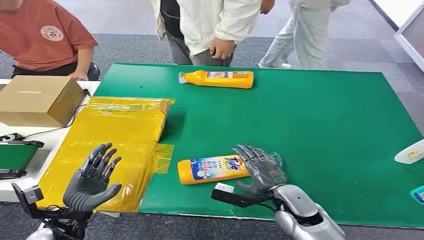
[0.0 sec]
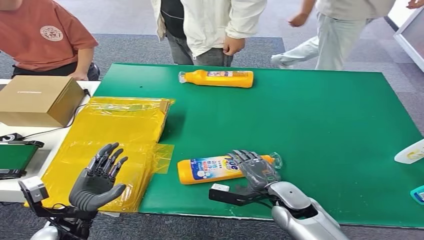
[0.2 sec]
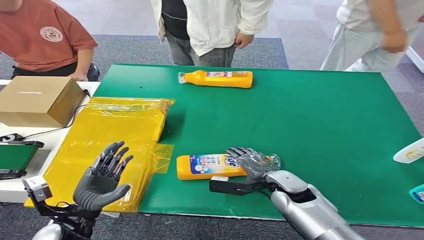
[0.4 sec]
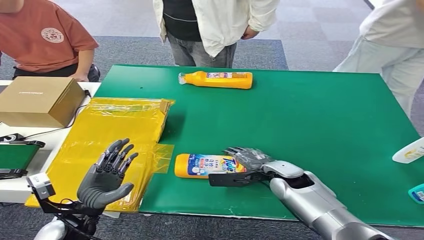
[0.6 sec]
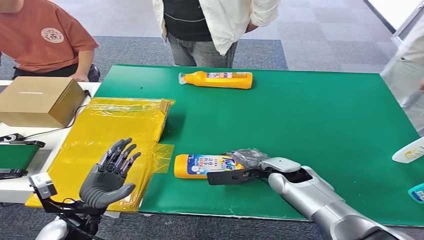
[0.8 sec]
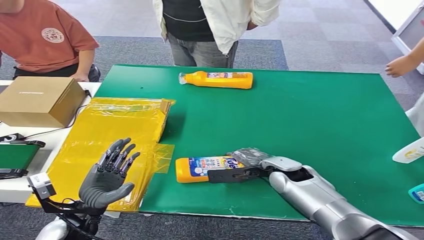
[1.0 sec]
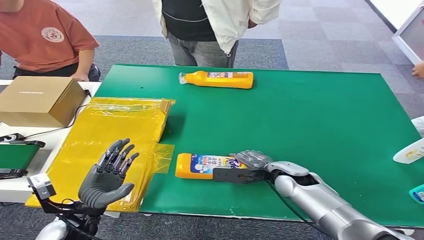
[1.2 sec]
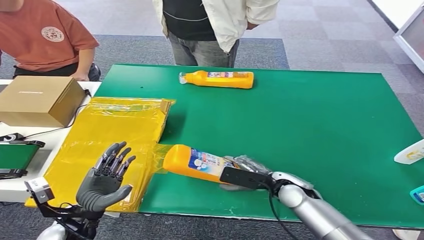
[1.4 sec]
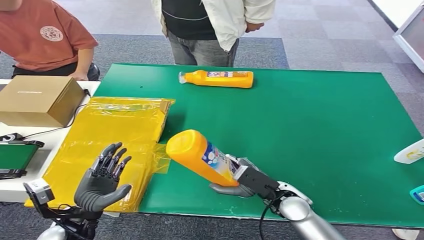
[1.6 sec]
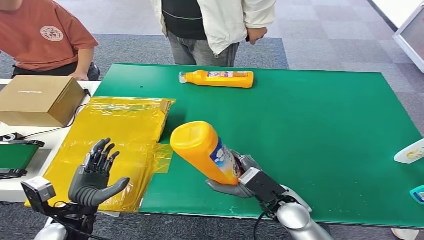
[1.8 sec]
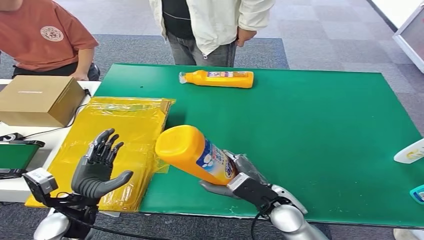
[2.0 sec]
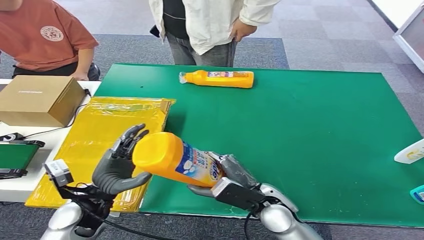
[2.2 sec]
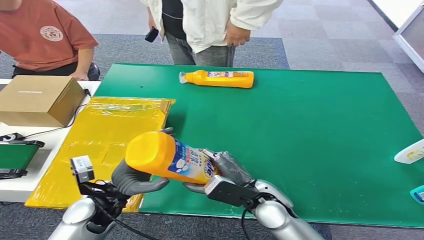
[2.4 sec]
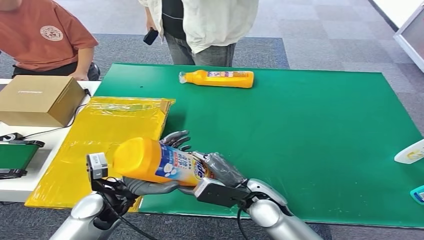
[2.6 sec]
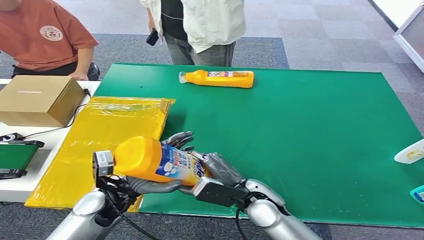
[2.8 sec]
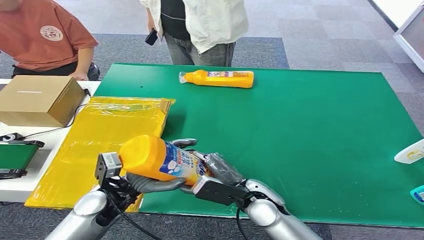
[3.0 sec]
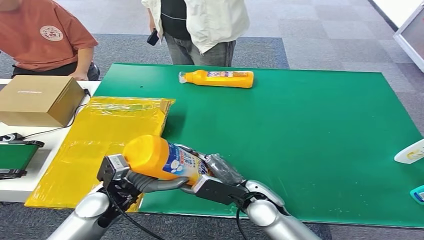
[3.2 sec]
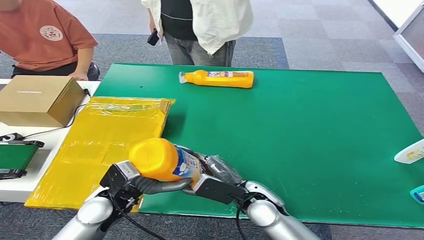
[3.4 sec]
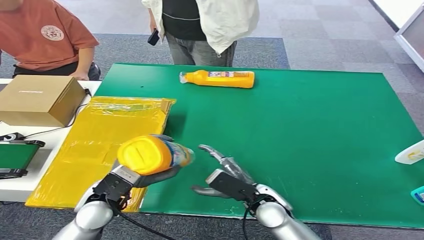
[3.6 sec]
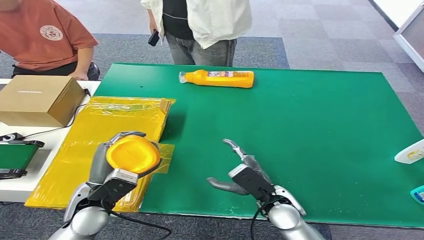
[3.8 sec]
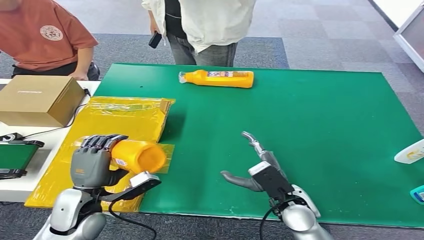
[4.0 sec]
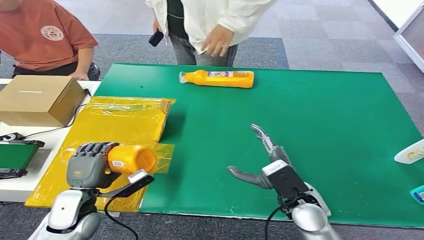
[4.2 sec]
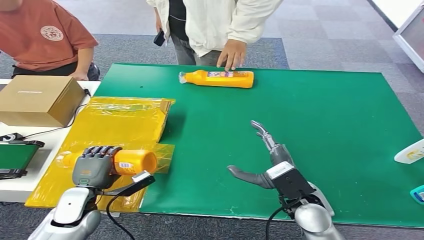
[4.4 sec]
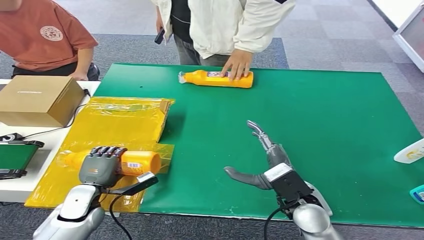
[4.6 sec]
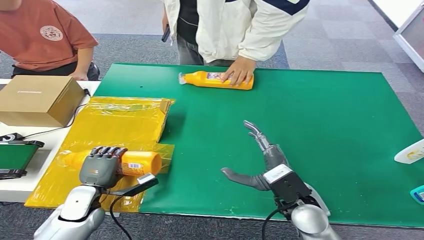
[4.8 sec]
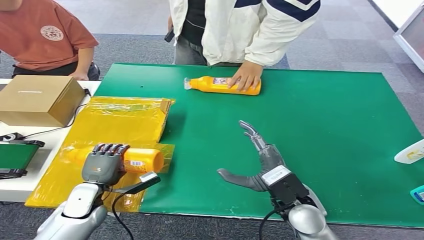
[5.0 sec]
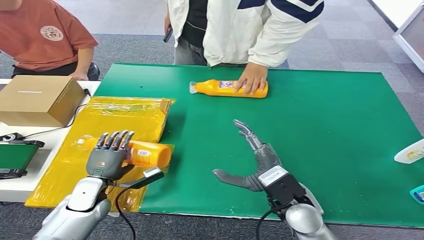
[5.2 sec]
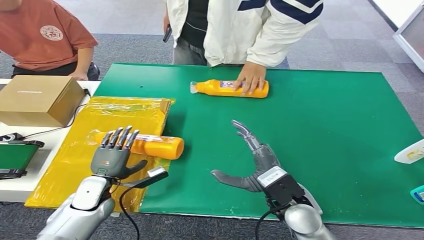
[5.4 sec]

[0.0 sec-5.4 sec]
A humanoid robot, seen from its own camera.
Step, 0.0 sec to 1.6 sec: Pick up the bottle from the table.
Step, 1.8 sec to 5.4 sec: Turn the bottle to the front side.
2.8 sec to 4.0 sec: The left hand moves to the left, about 5 cm; the right hand goes roughly 5 cm to the right.

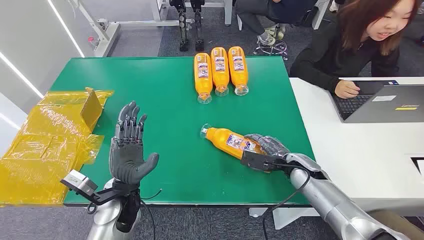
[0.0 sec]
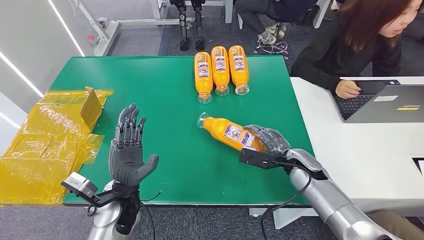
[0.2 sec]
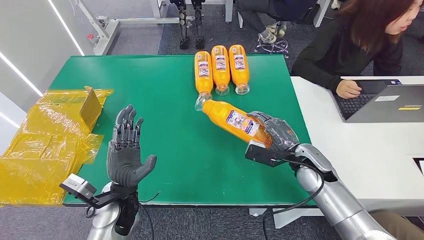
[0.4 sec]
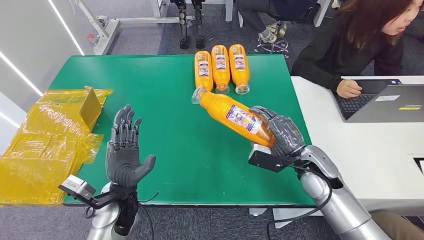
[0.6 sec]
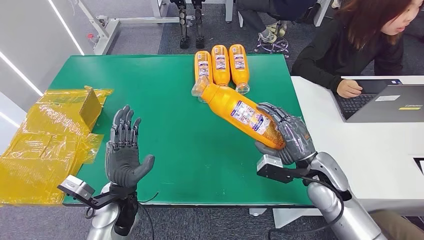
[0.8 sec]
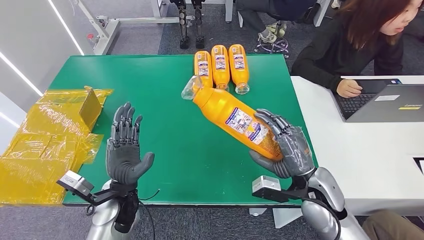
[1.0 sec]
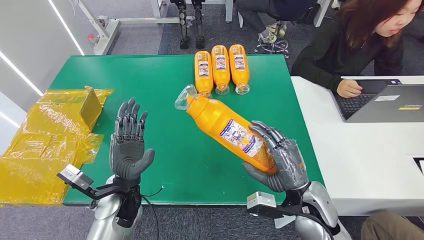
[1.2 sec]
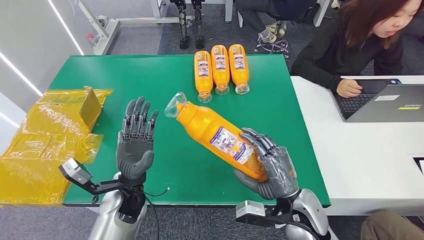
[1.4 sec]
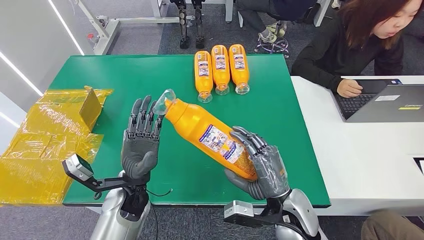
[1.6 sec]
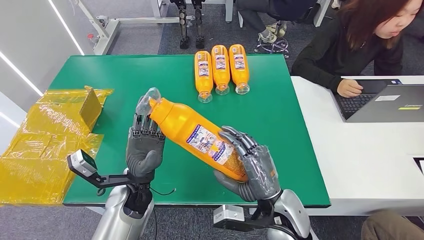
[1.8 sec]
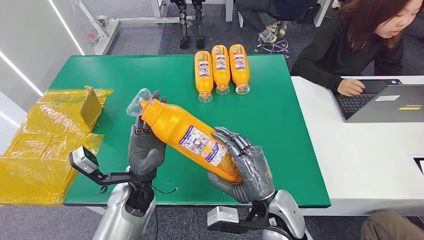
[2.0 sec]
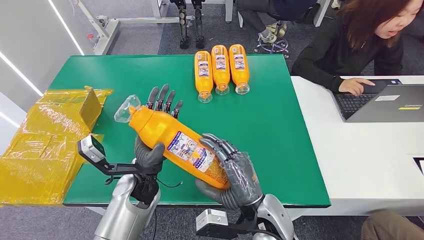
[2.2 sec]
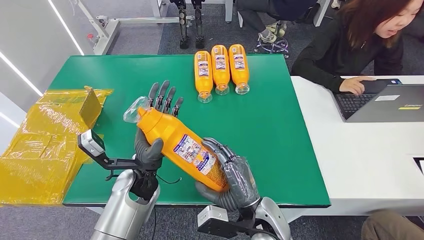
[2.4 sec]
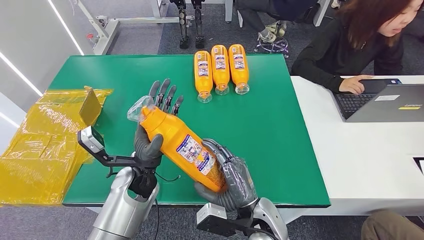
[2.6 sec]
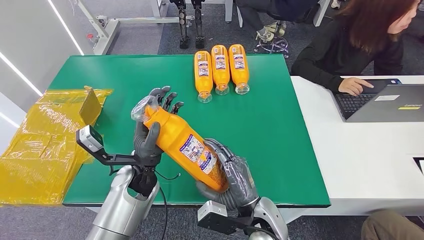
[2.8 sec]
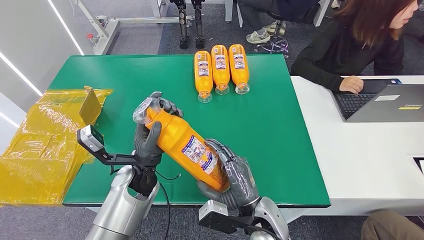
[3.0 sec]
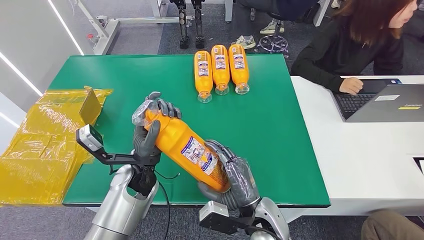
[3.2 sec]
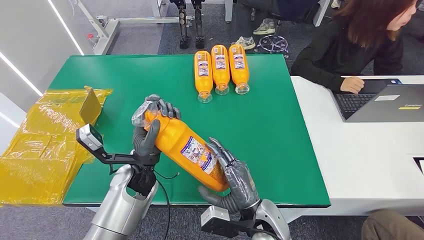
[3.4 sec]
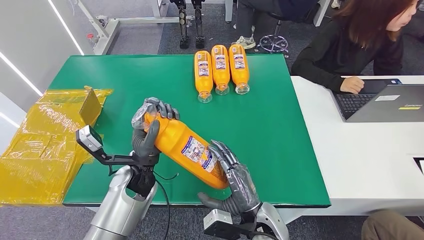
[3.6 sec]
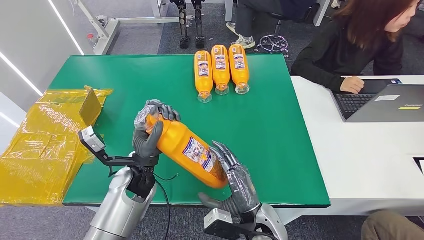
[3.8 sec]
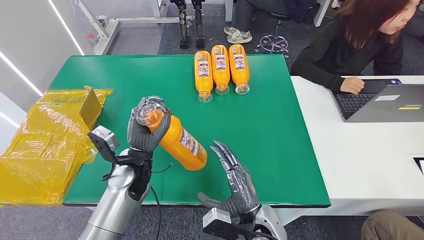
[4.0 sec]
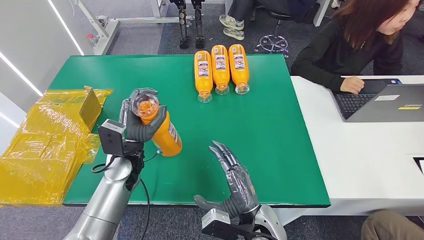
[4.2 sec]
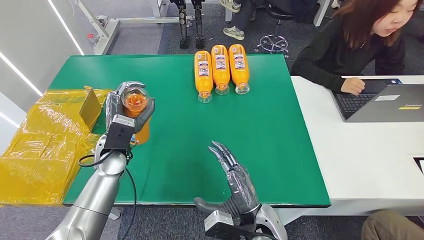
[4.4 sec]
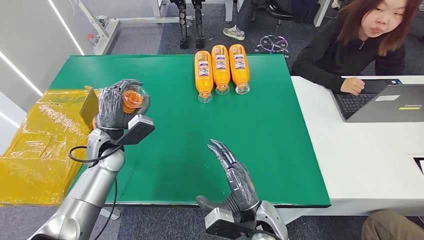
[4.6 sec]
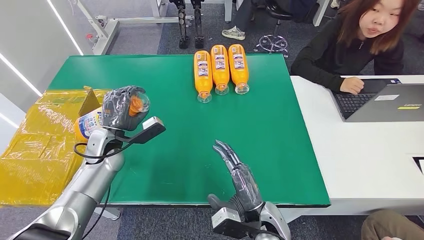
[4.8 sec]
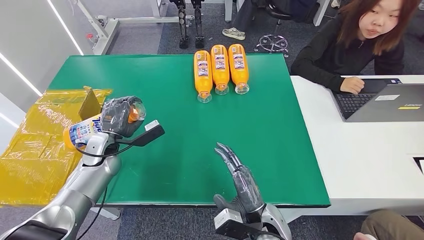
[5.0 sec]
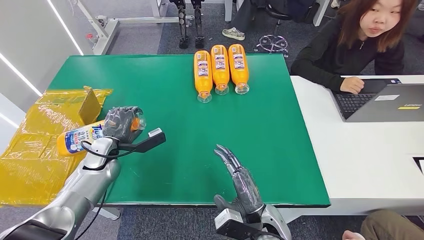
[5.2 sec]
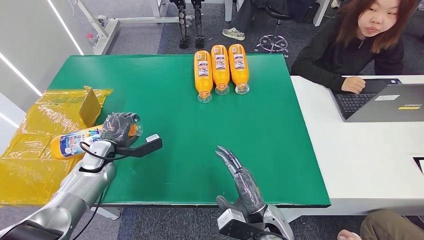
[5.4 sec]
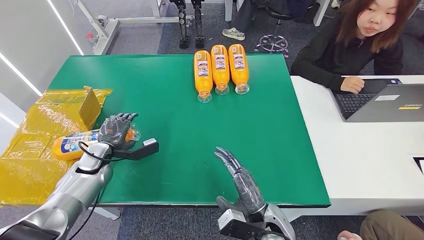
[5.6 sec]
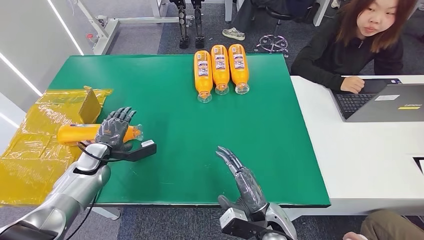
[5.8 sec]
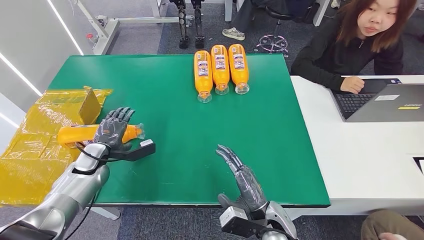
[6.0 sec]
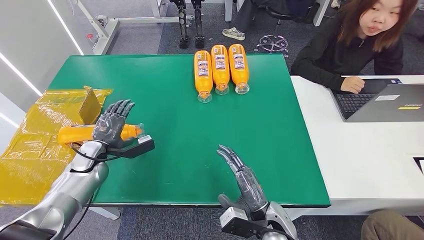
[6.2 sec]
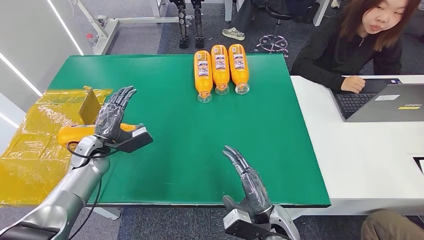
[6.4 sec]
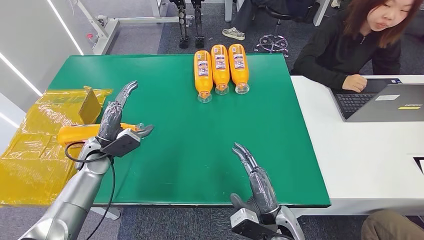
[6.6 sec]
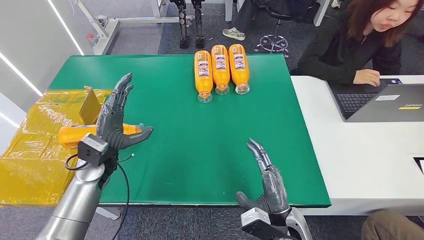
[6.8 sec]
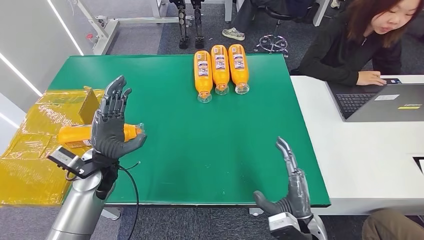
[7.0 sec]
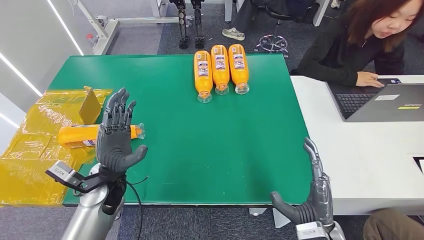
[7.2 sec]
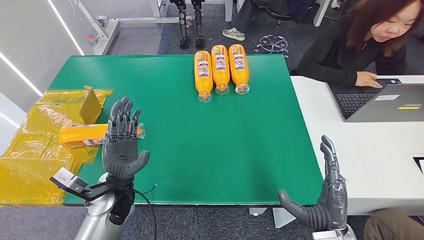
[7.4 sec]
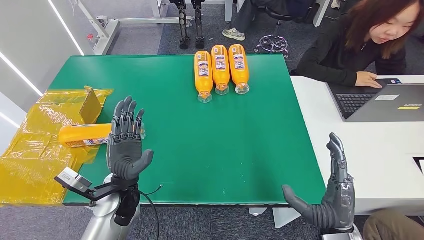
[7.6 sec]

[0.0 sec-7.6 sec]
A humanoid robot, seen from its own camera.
Step, 0.0 sec to 2.4 sec: Pick up the bottle from the table.
Step, 2.6 sec to 7.6 sec: Turn the bottle to the front side.
1.6 sec to 3.0 sec: The right hand goes about 5 cm to the left, while the left hand shifts by about 5 cm.
3.0 sec to 4.6 sec: The left hand moves to the left and forward, approximately 15 cm.
4.6 sec to 6.0 sec: The left hand moves to the left and downward, about 15 cm.
6.0 sec to 7.6 sec: The right hand goes roughly 15 cm to the right, upward and backward, while the left hand moves to the right and backward, some 20 cm.
